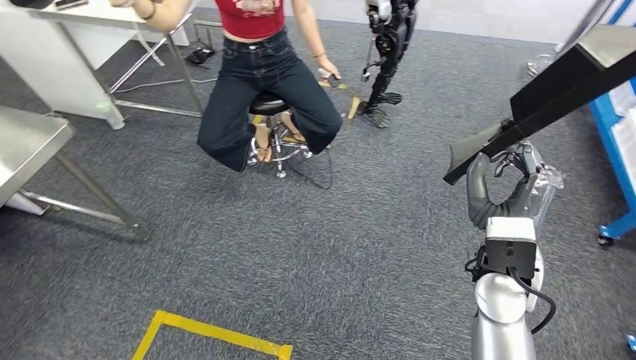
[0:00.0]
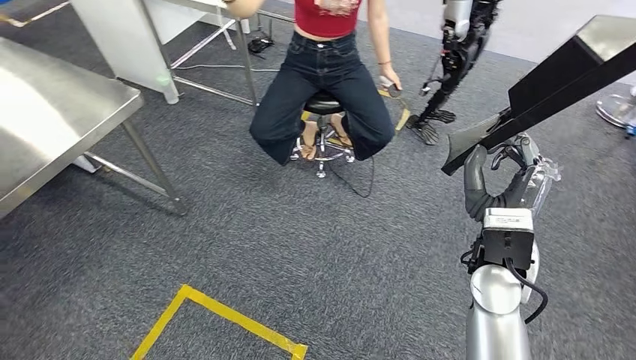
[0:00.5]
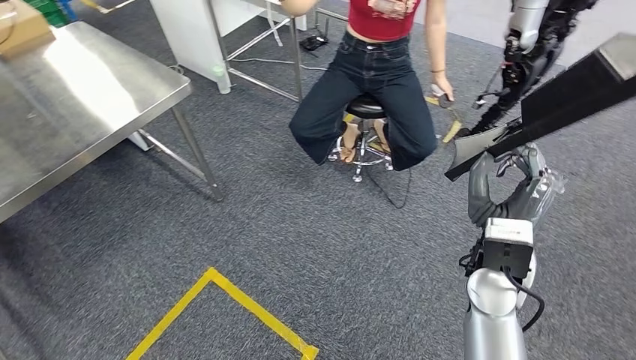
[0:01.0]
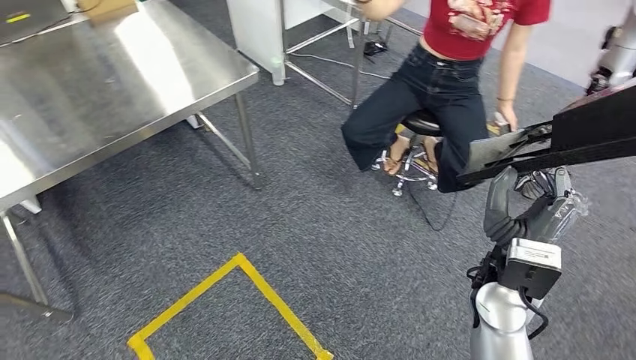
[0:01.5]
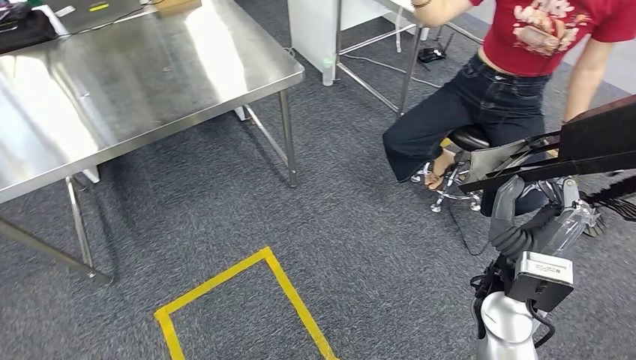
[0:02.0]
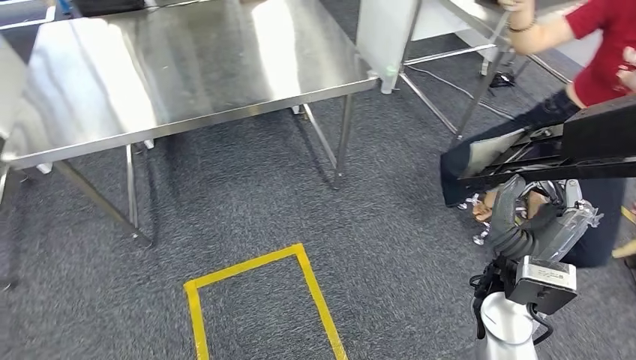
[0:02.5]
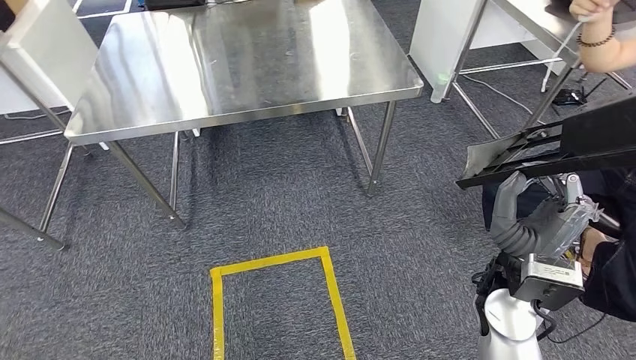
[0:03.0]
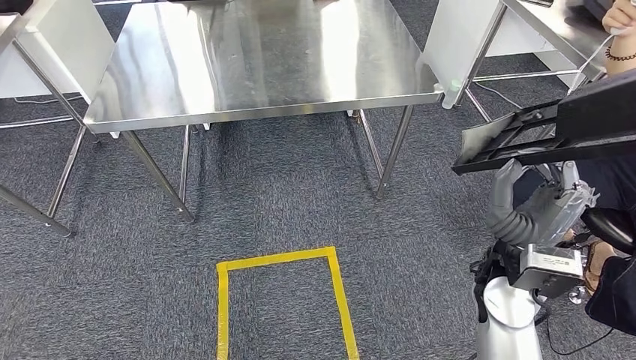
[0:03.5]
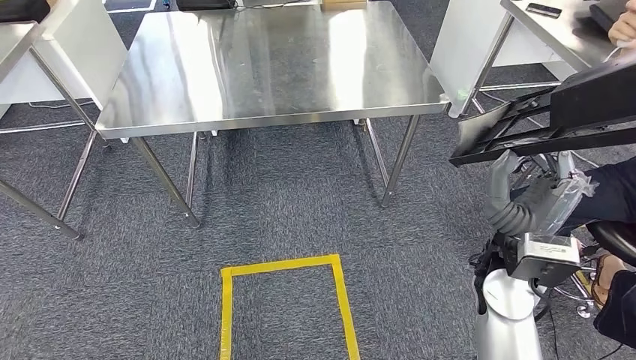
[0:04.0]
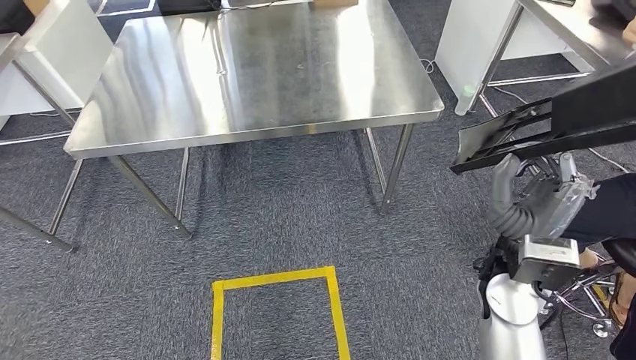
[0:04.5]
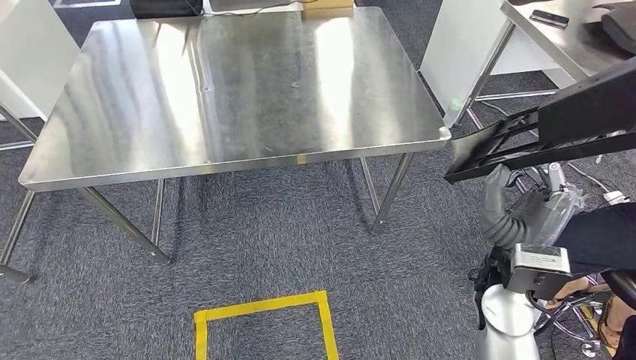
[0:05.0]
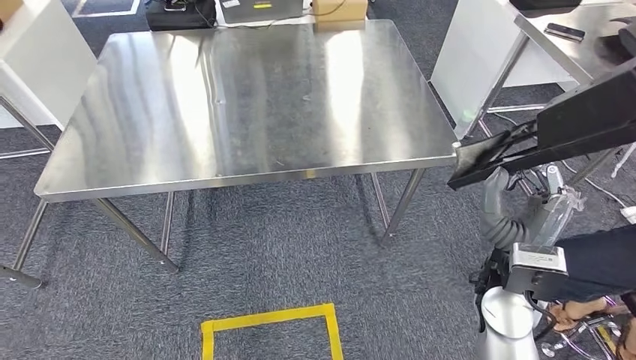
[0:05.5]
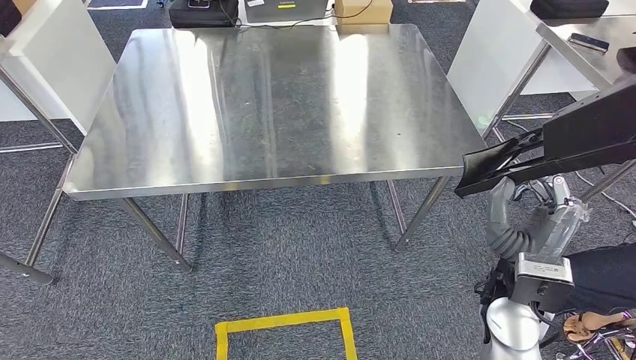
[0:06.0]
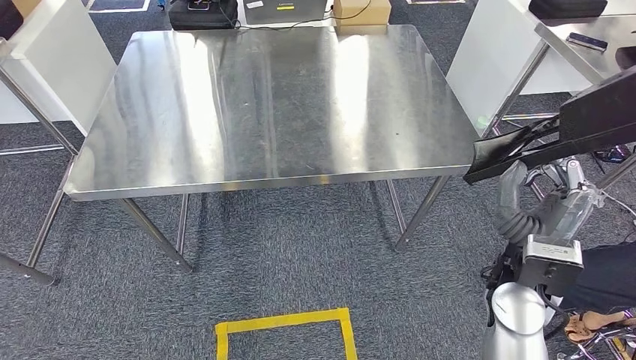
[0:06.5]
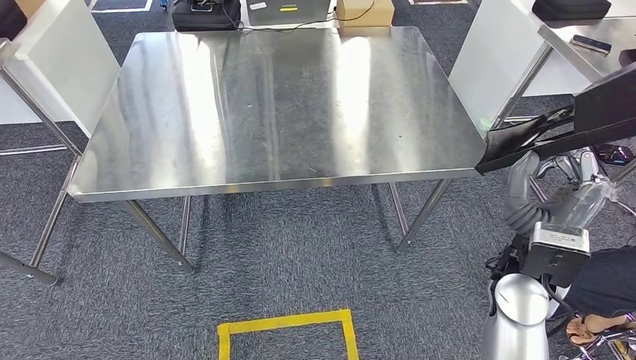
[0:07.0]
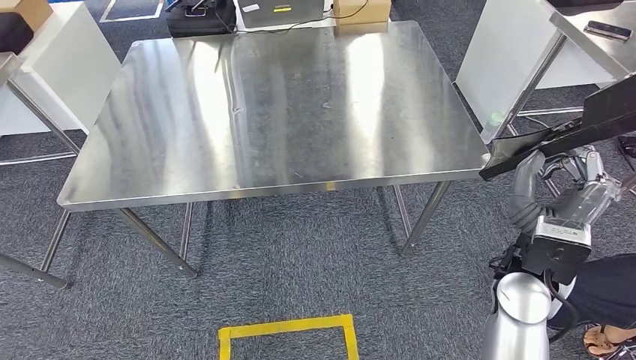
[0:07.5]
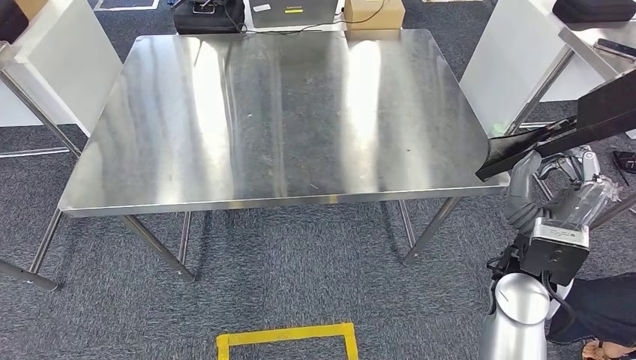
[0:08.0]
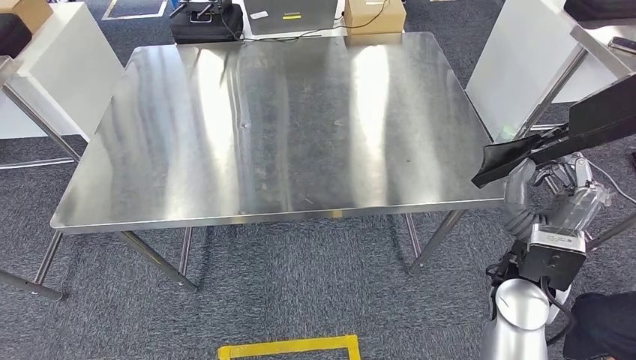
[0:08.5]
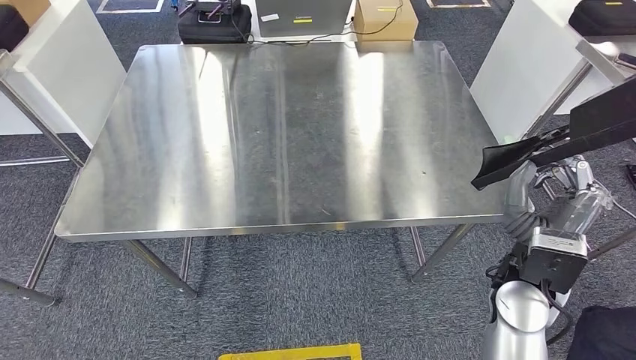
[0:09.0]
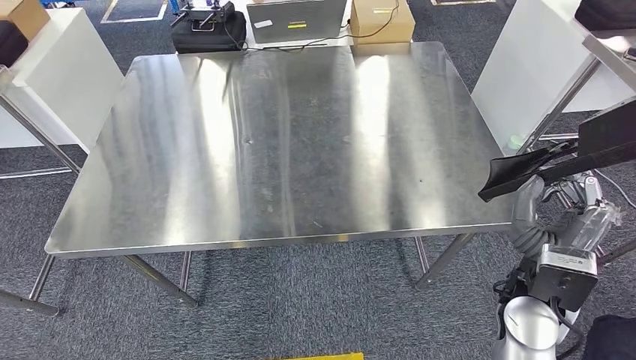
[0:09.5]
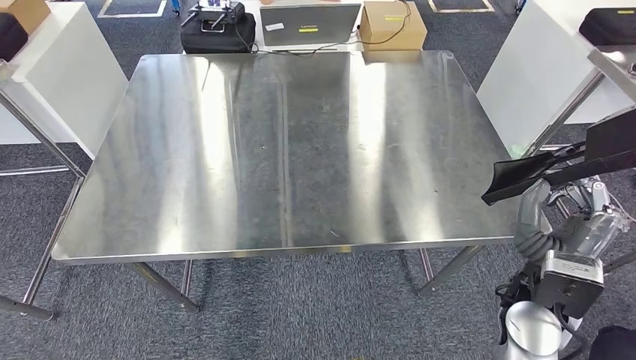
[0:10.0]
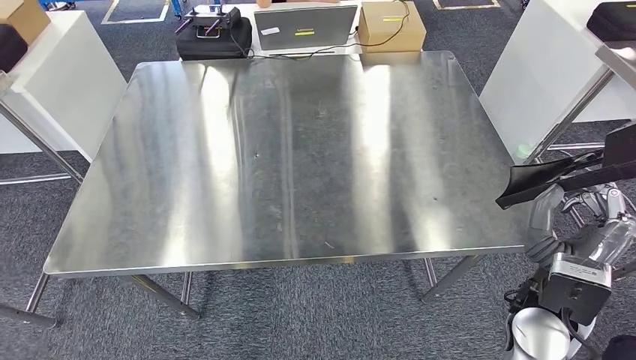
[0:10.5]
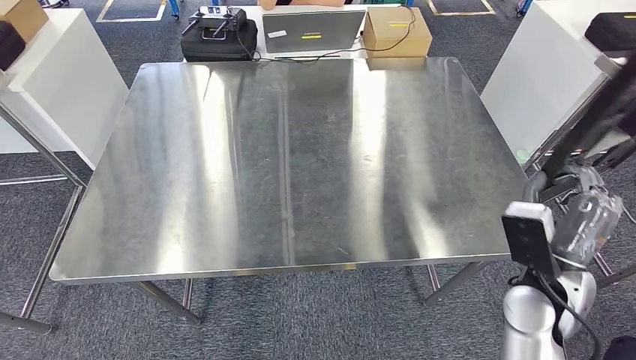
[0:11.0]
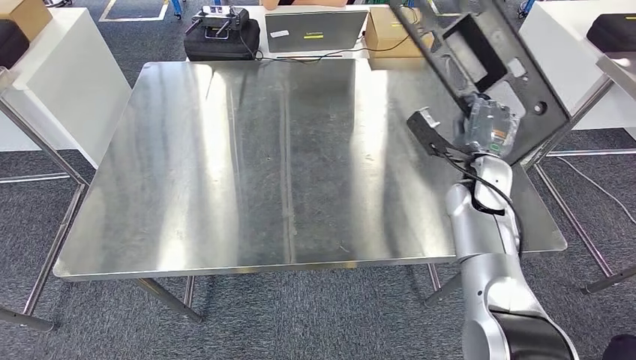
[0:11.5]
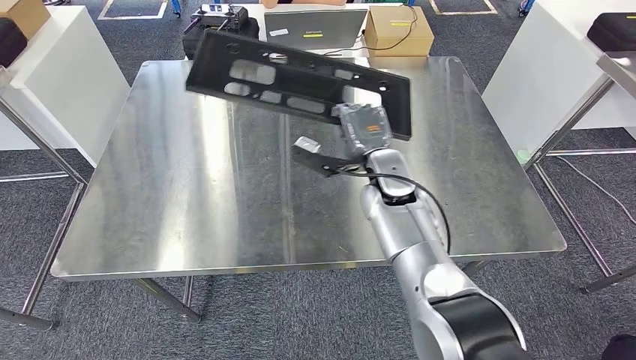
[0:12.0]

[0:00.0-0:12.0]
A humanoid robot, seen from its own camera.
Step, 0:00.0 to 0:07.0: Move the large material to the workbench.

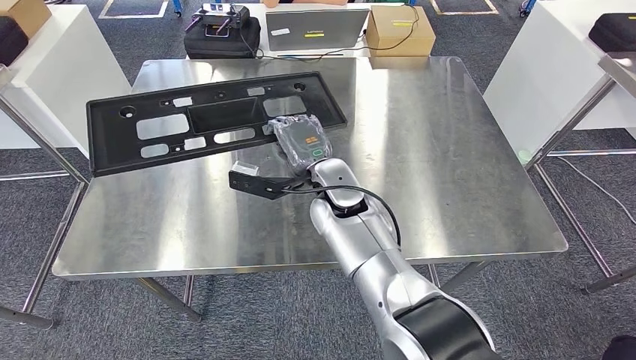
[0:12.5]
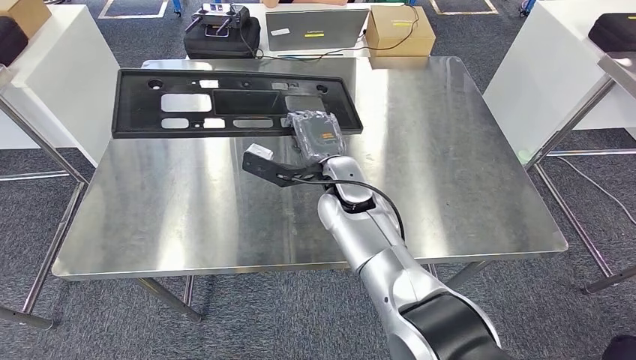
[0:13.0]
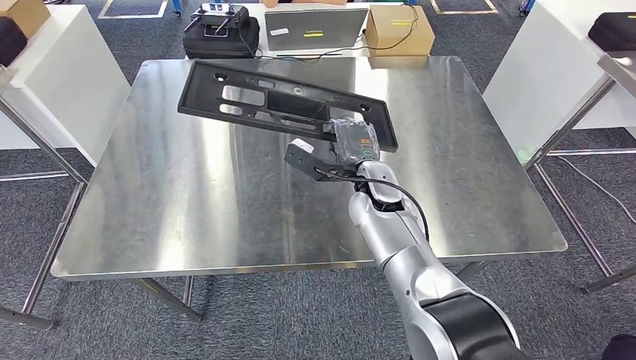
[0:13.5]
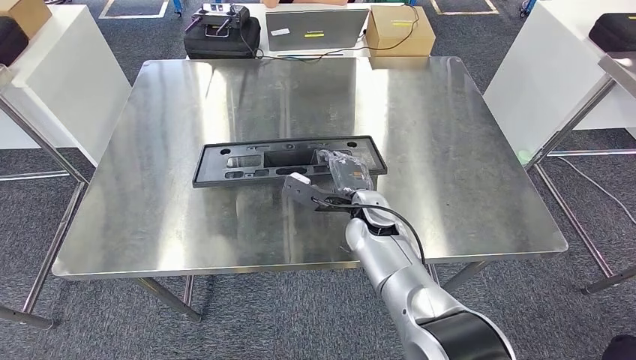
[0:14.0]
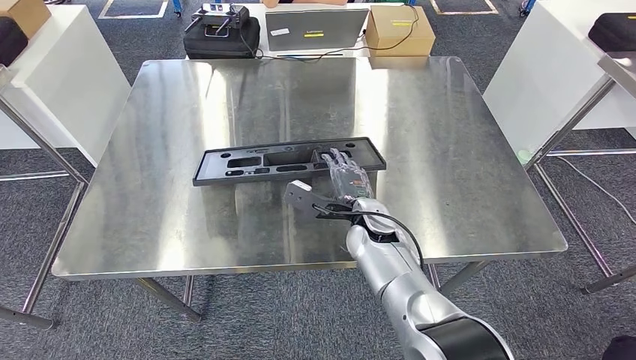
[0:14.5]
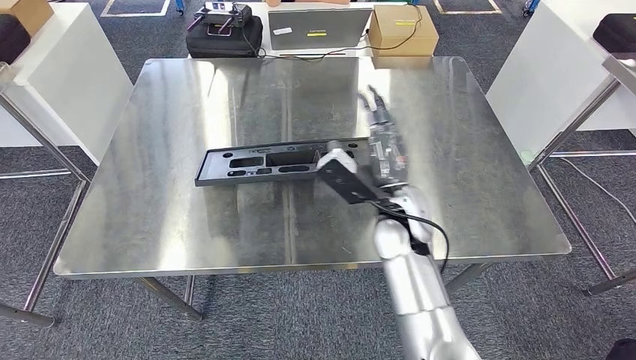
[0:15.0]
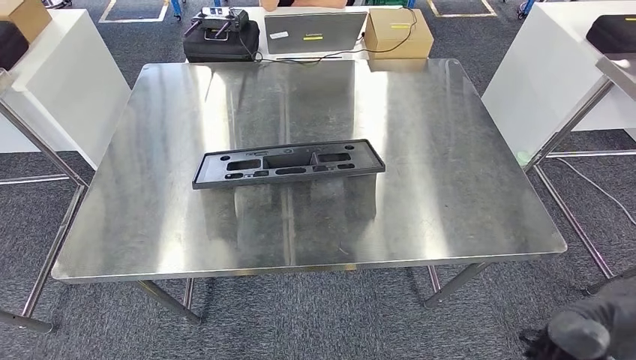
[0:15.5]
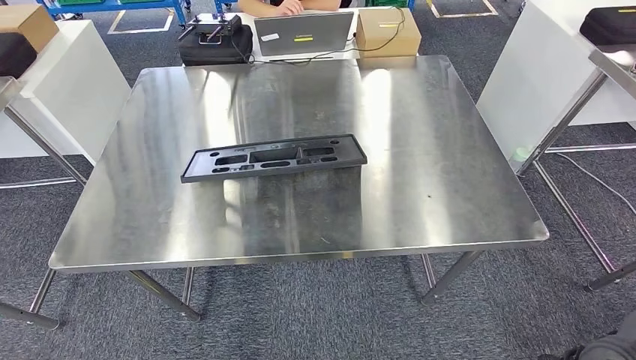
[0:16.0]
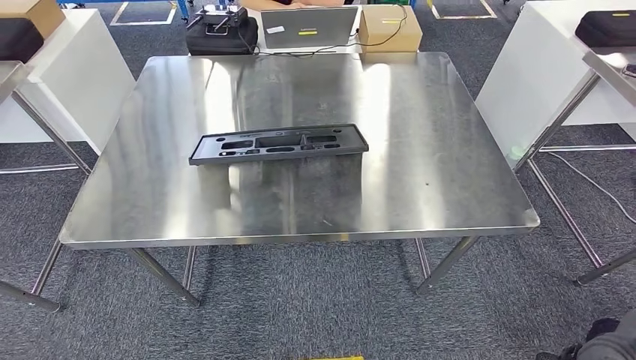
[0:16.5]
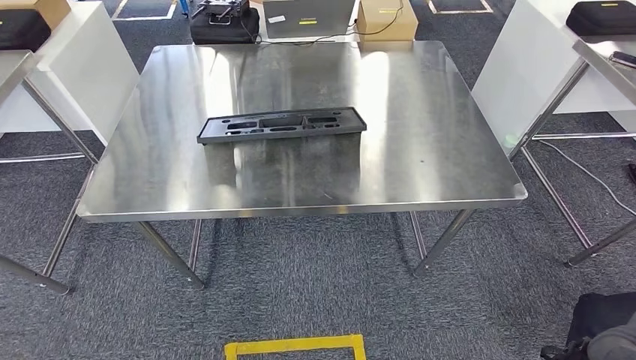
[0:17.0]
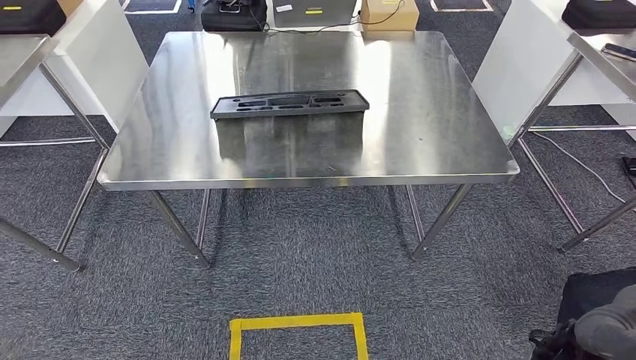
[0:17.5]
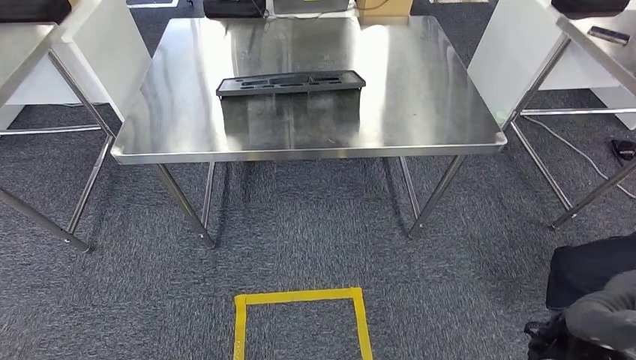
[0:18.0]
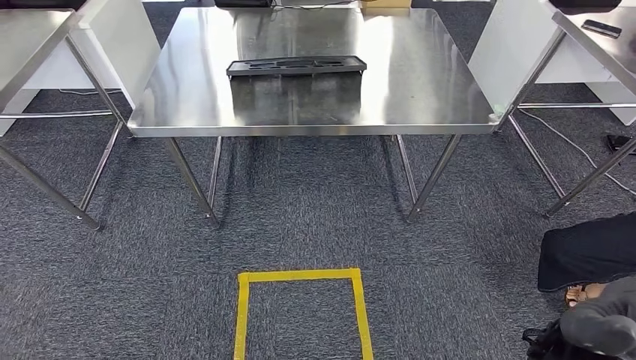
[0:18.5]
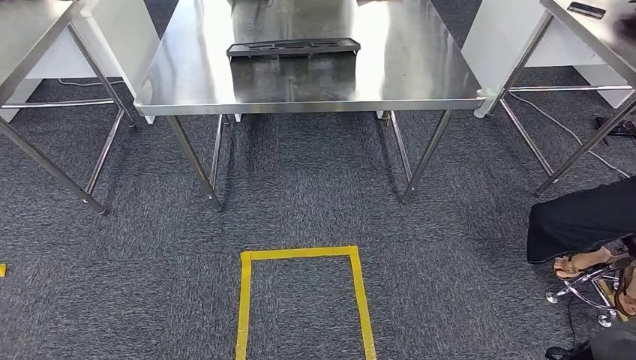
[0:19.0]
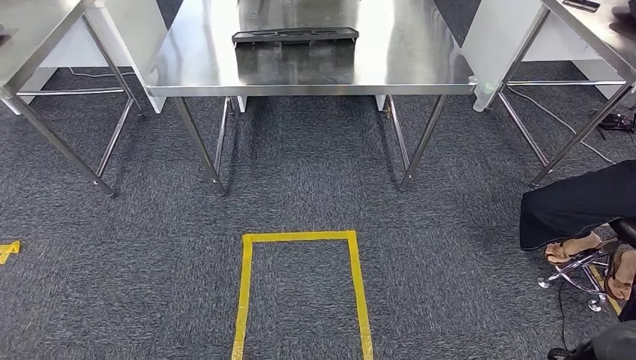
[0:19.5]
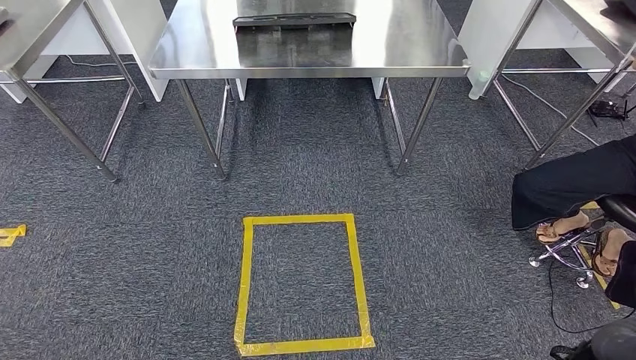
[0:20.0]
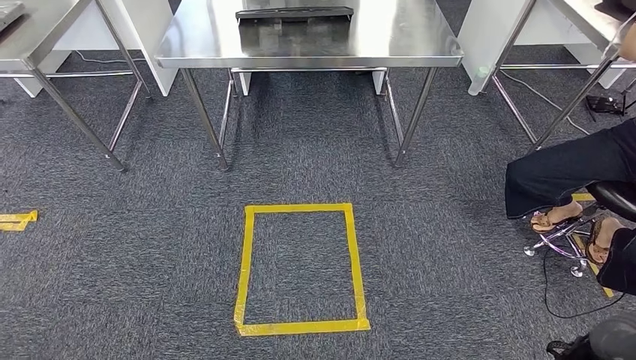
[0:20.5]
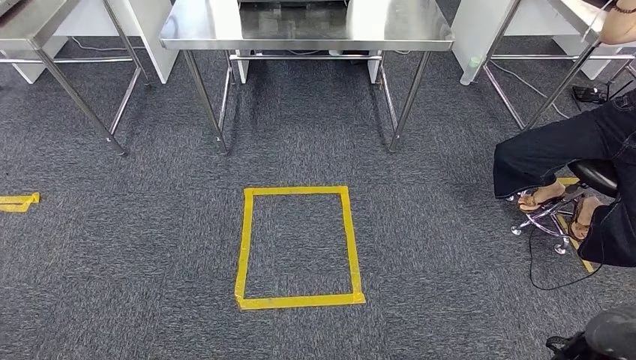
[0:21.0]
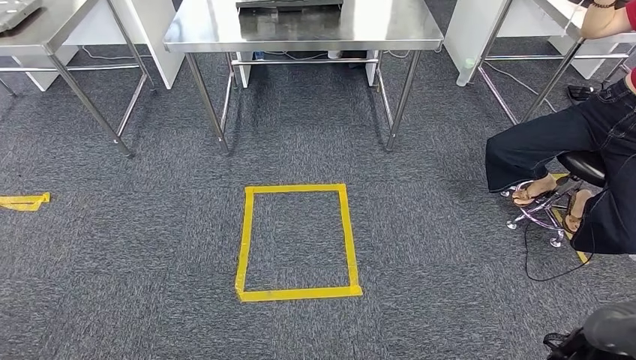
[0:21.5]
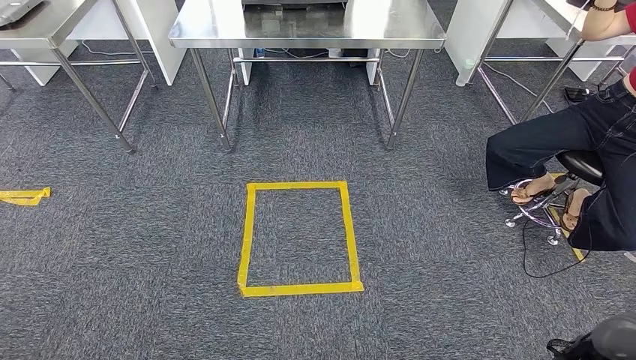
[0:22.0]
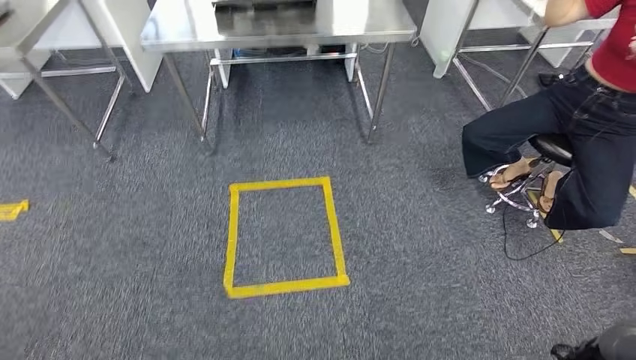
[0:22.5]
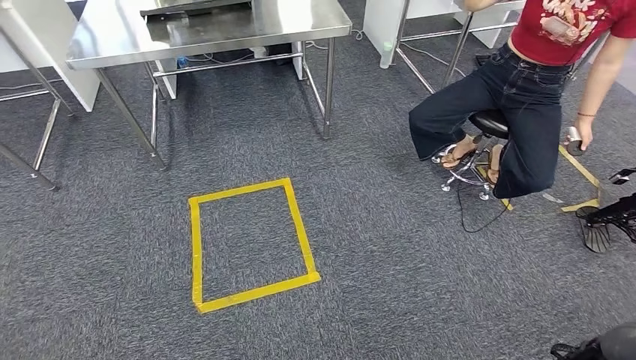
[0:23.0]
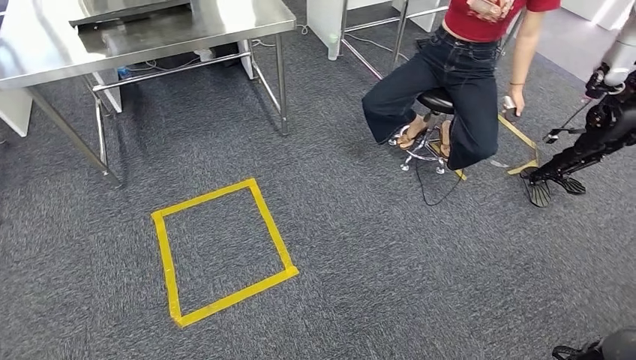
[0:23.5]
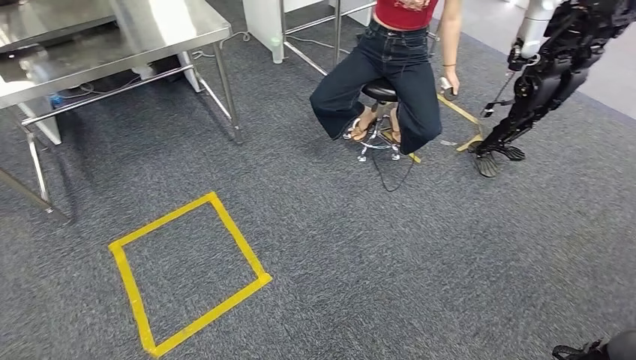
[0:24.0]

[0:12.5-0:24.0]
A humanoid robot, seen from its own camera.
Step, 0:12.5 to 0:20.0: Insert the large material into the corresponding slot on the workbench.
0:12.5 to 0:14.5: The right hand goes some 10 cm downward and to the right.
